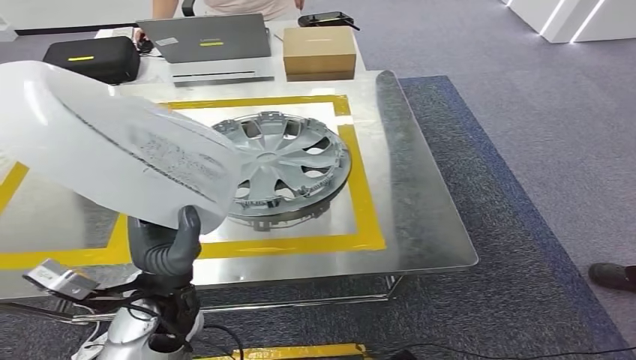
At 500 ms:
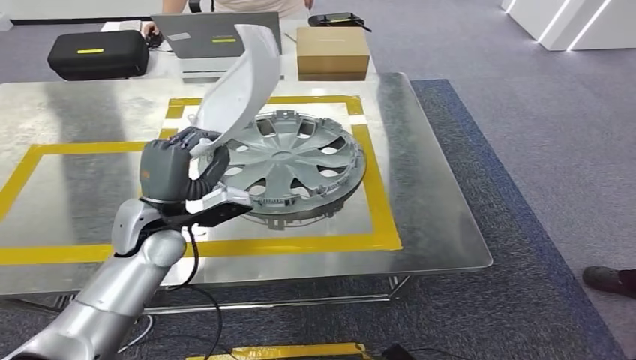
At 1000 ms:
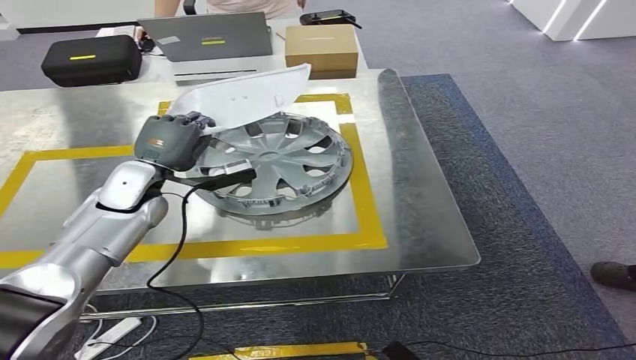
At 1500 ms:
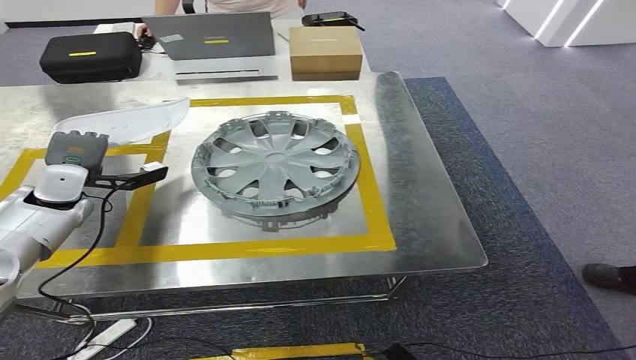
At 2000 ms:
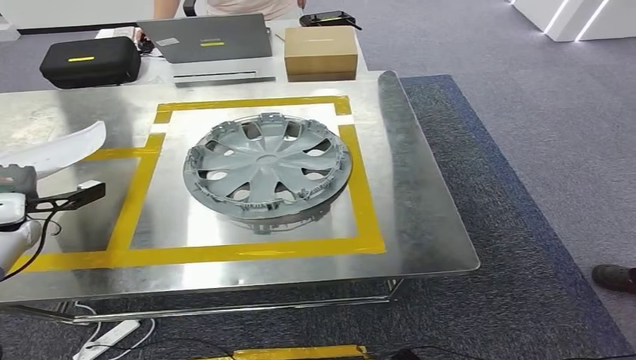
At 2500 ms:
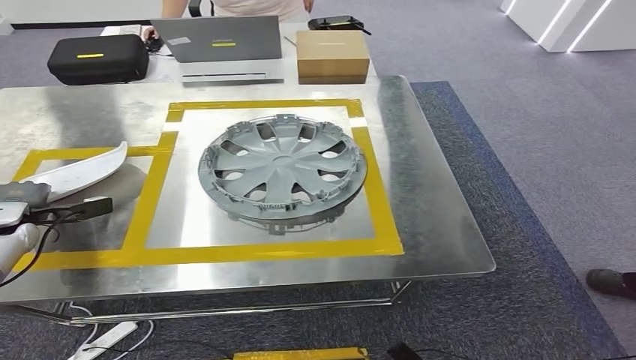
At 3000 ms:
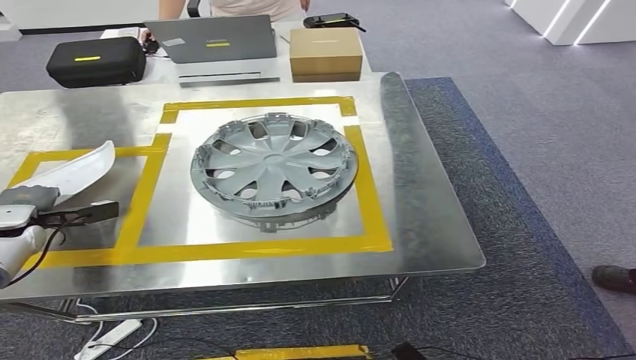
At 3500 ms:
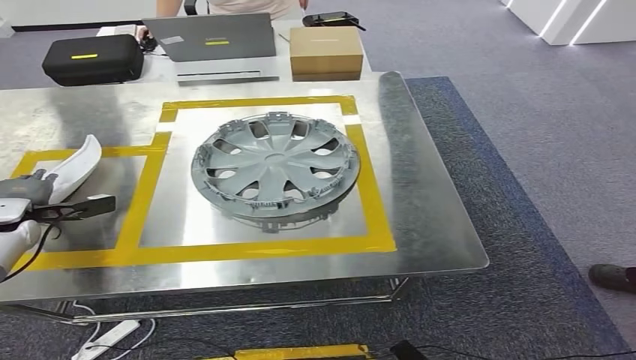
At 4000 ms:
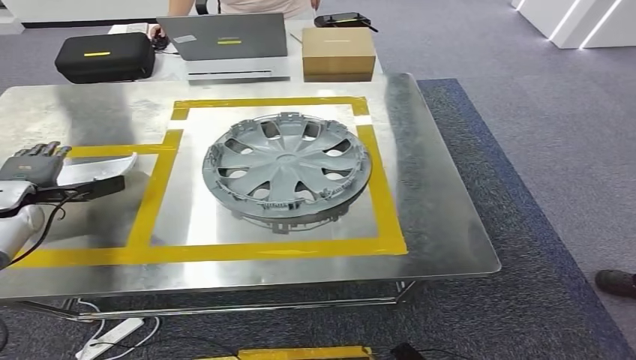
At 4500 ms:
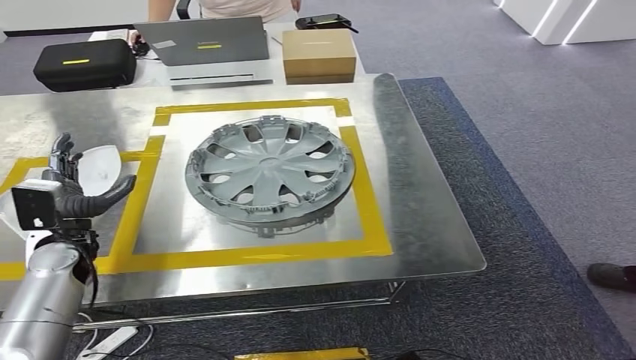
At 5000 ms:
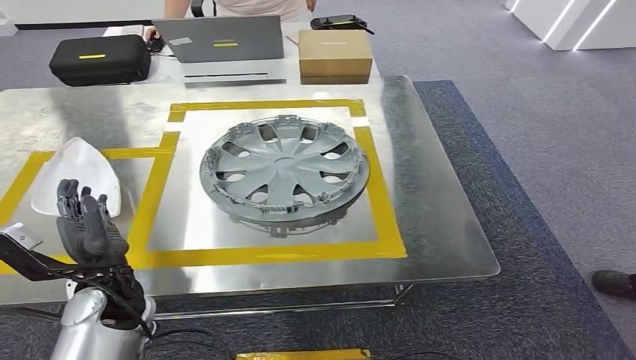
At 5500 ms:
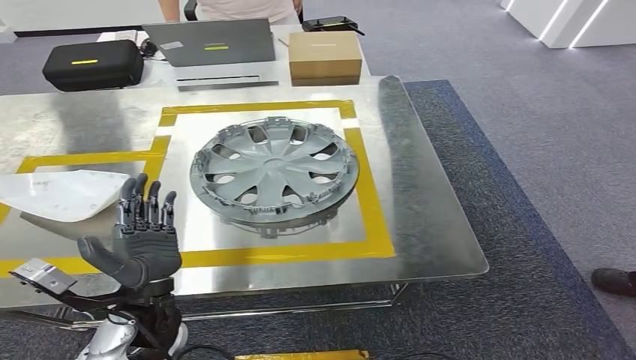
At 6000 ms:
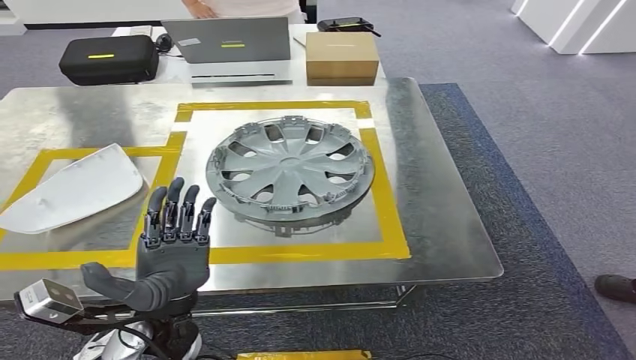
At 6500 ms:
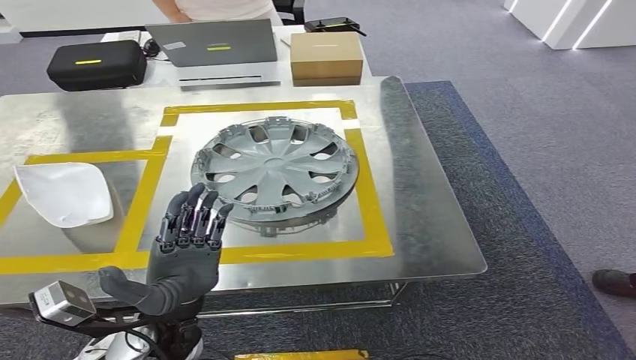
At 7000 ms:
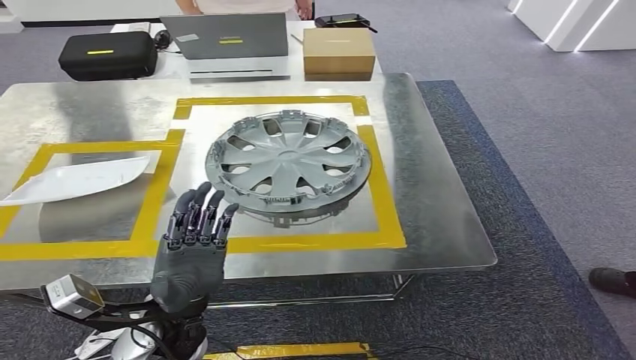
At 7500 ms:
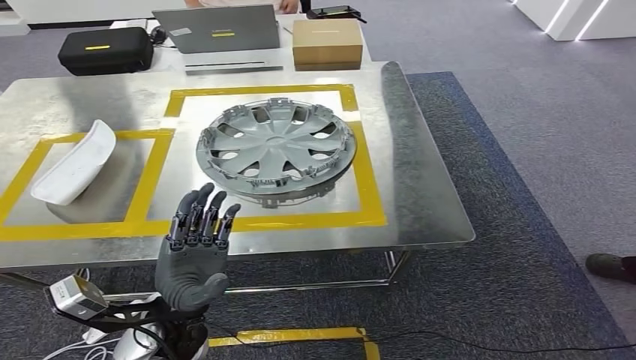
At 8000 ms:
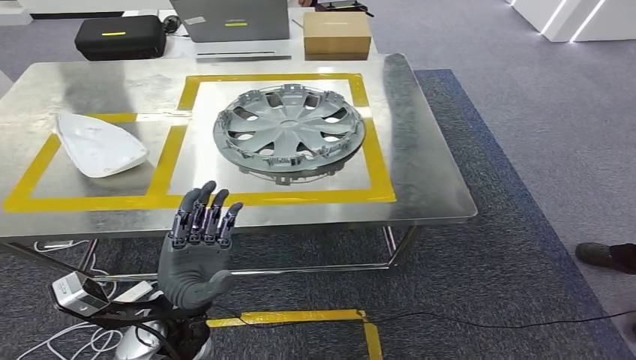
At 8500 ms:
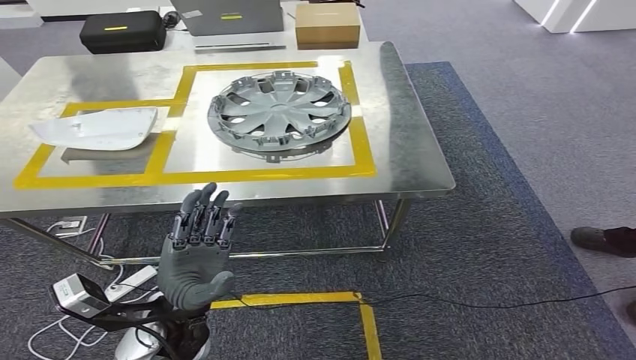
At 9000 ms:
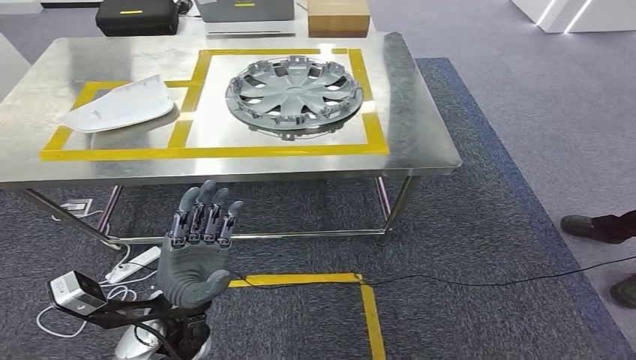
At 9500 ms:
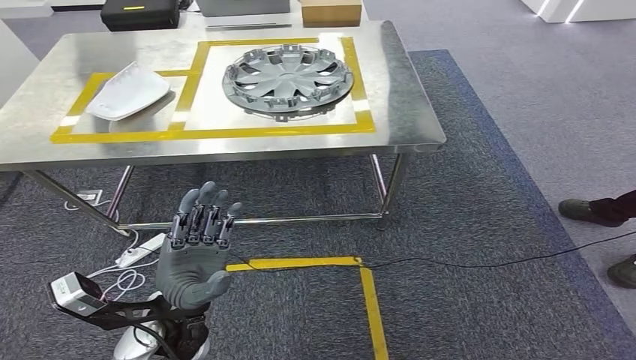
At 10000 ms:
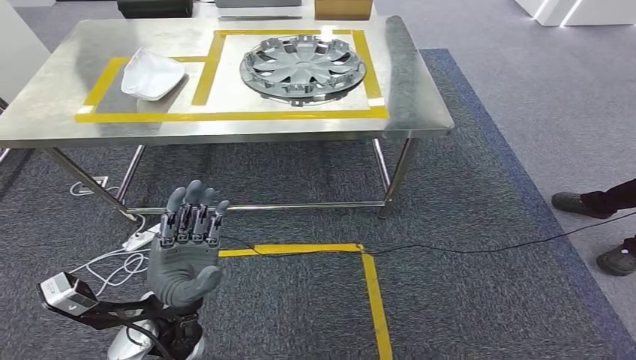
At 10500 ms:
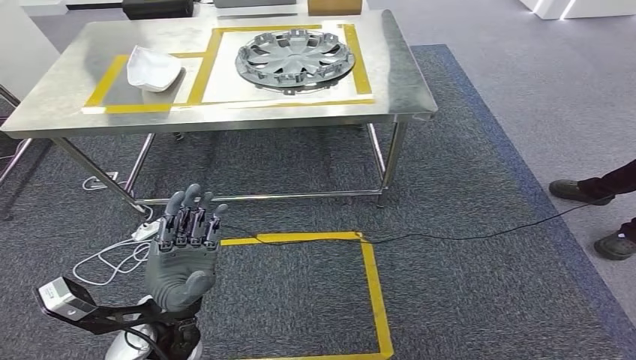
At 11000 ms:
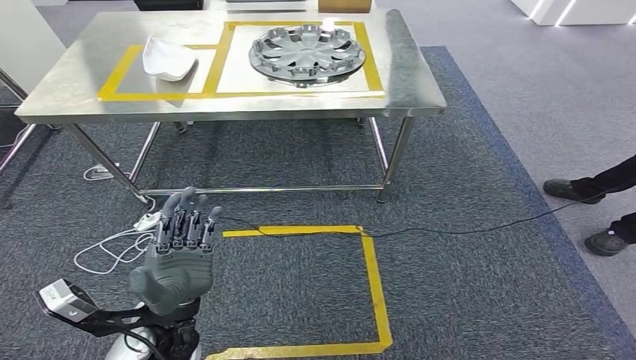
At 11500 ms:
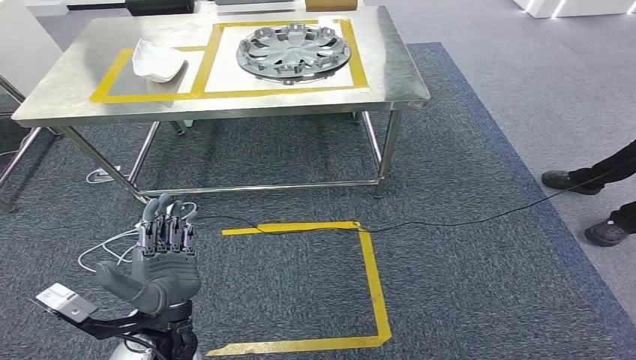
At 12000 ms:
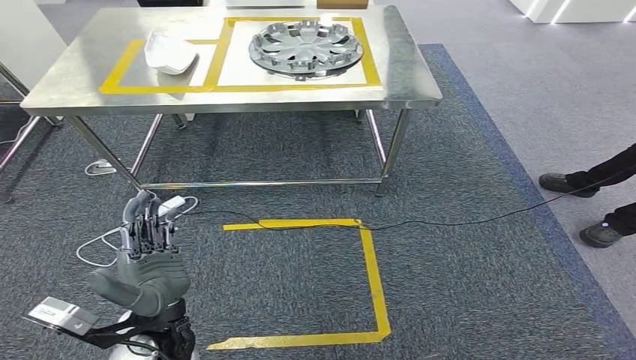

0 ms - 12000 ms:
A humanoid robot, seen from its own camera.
Step, 0 ms - 11500 ms: Insert the small component into the corresponding slot on the workbench.

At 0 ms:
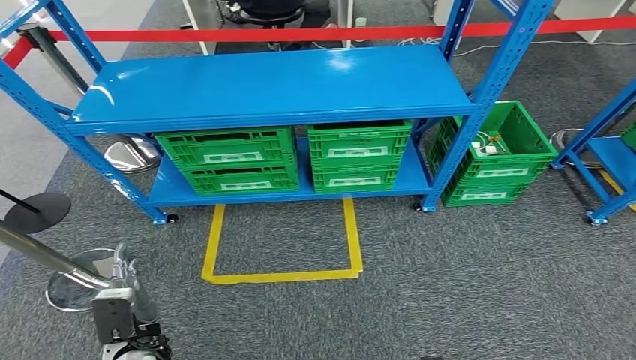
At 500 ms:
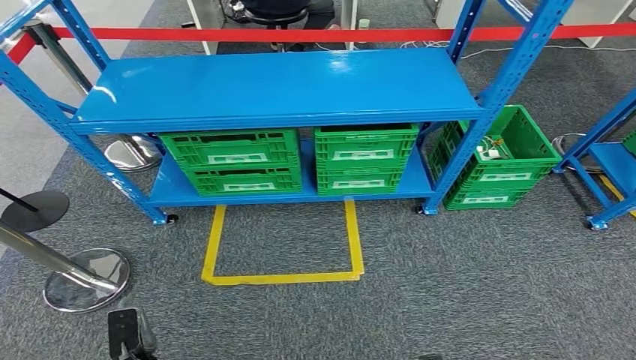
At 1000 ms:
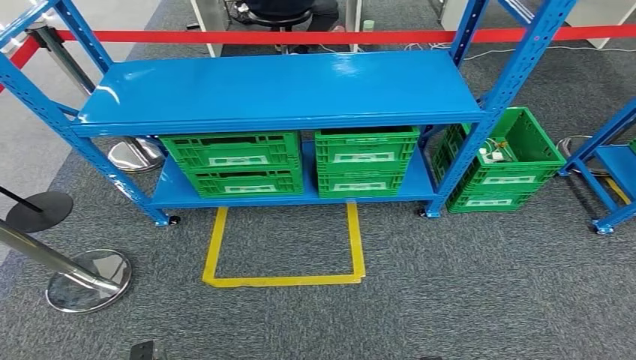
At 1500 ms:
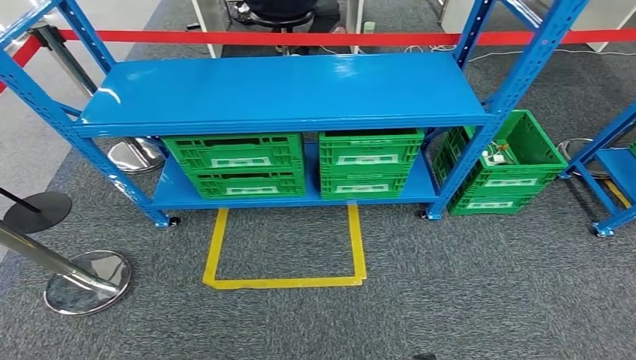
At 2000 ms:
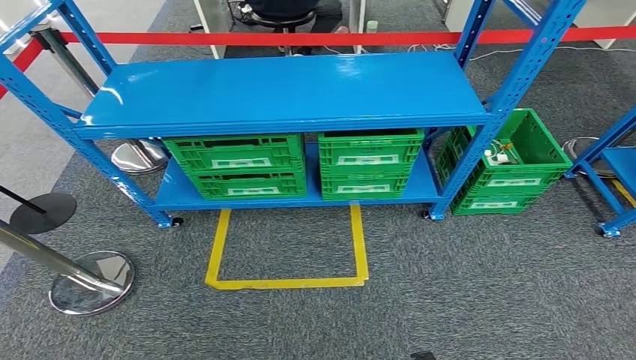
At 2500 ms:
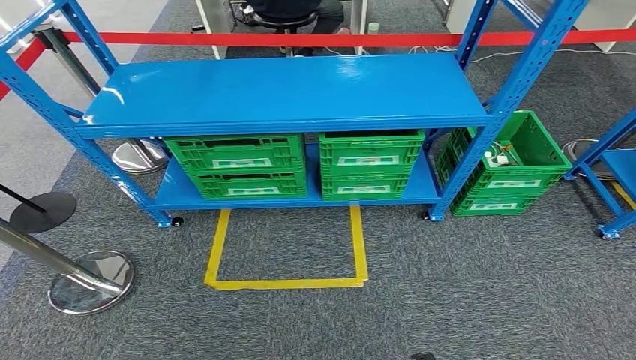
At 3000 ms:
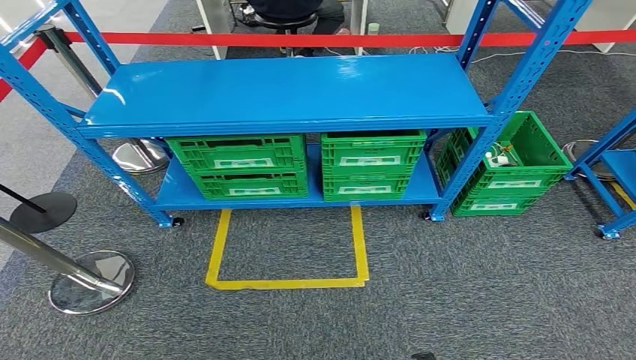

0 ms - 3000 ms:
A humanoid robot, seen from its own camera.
Step, 0 ms - 3000 ms: Move to the initial position of the workbench.
1500 ms - 3000 ms: The hands make only small movements.

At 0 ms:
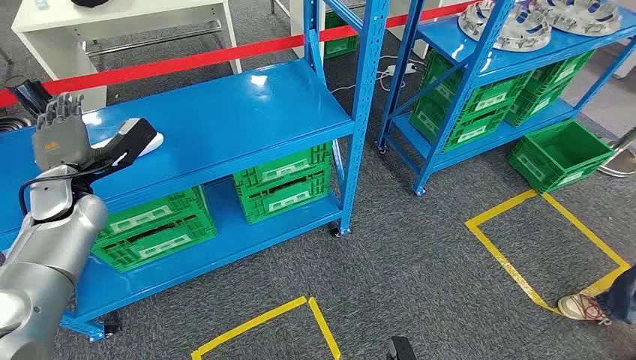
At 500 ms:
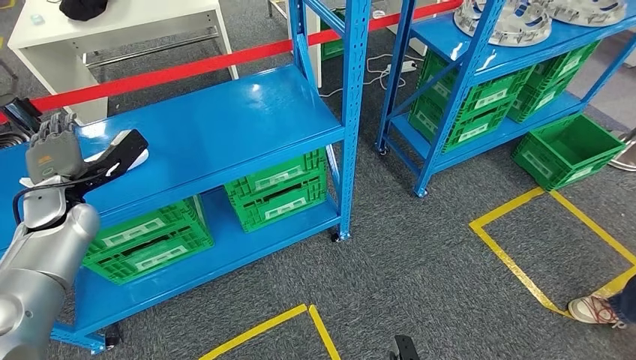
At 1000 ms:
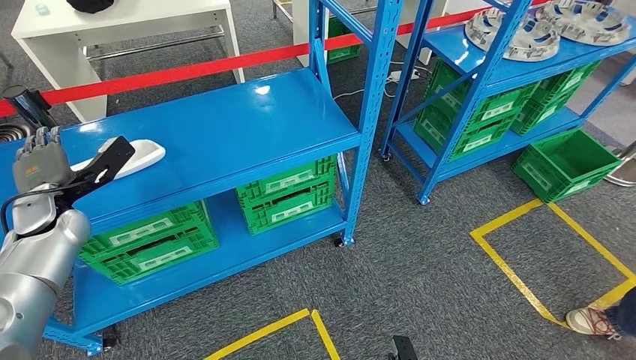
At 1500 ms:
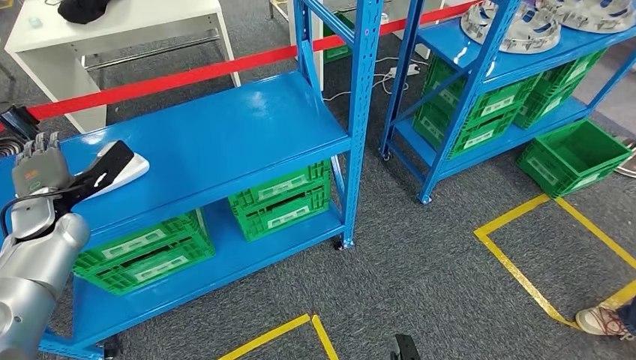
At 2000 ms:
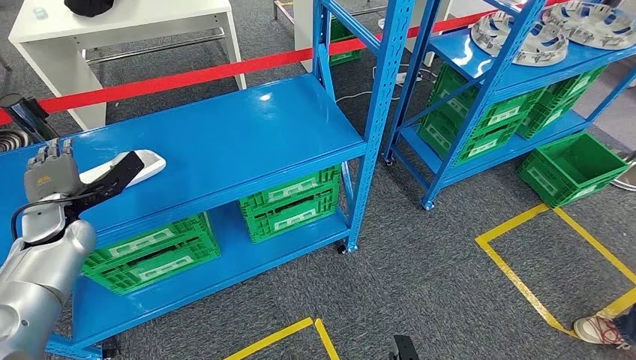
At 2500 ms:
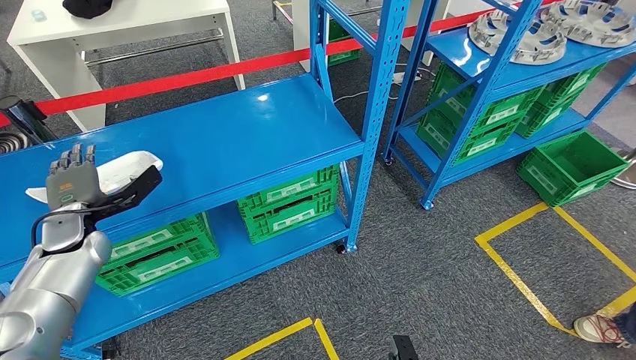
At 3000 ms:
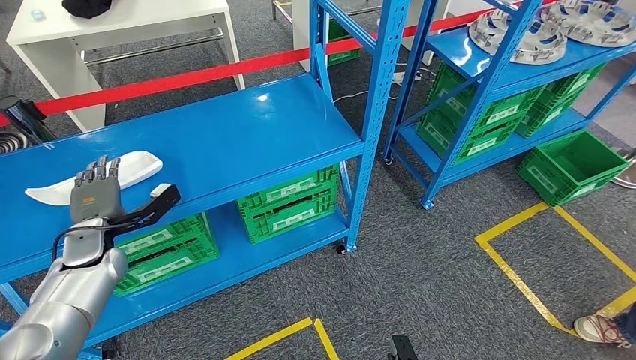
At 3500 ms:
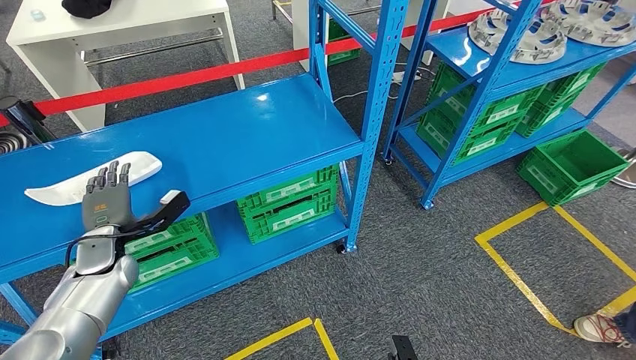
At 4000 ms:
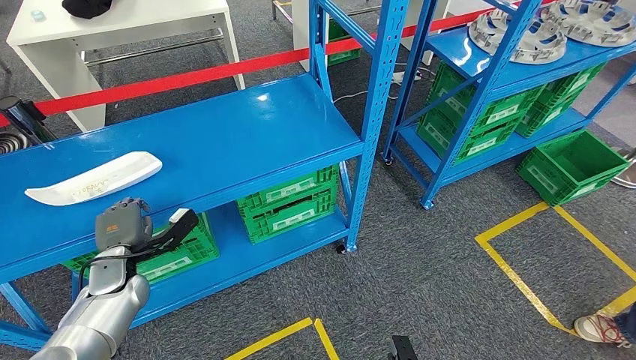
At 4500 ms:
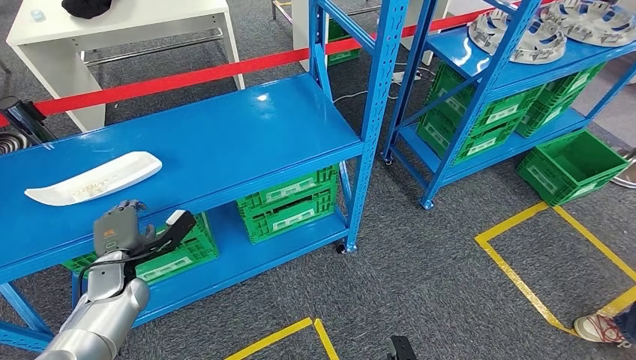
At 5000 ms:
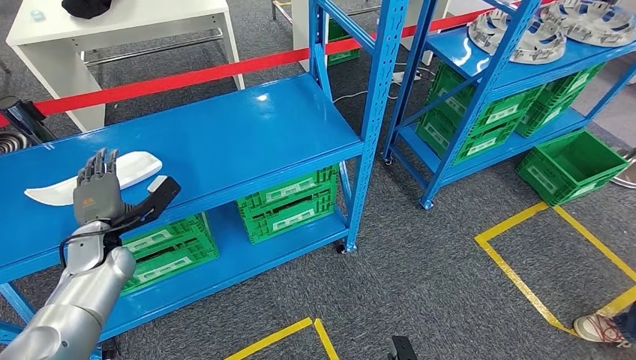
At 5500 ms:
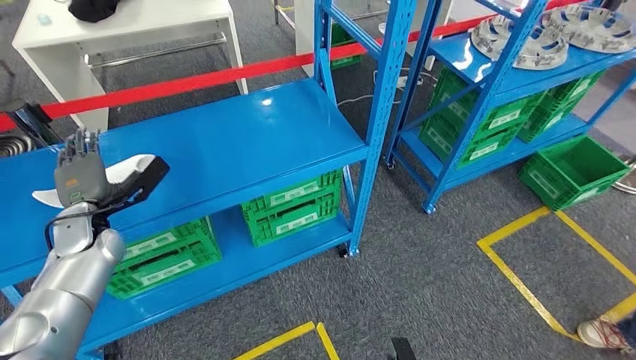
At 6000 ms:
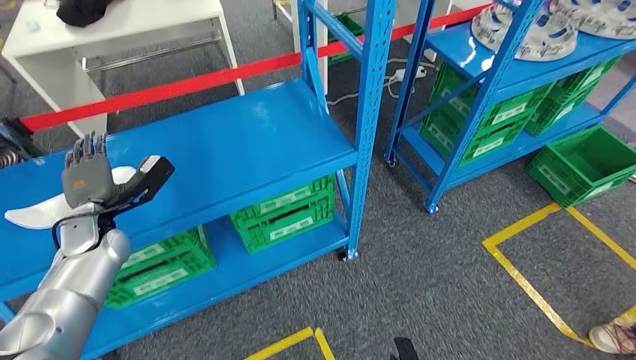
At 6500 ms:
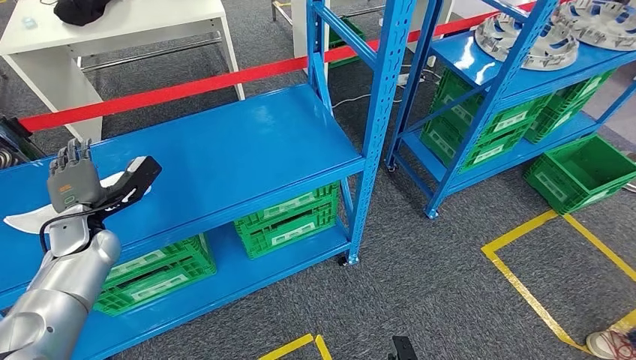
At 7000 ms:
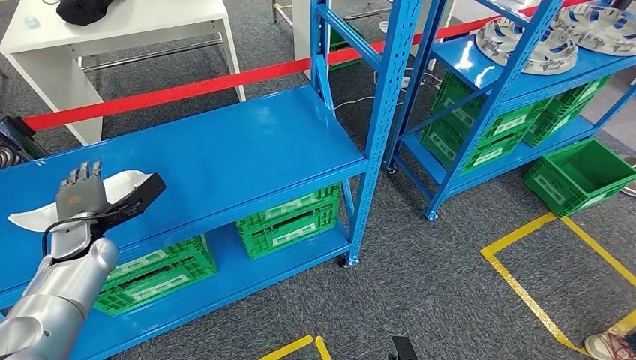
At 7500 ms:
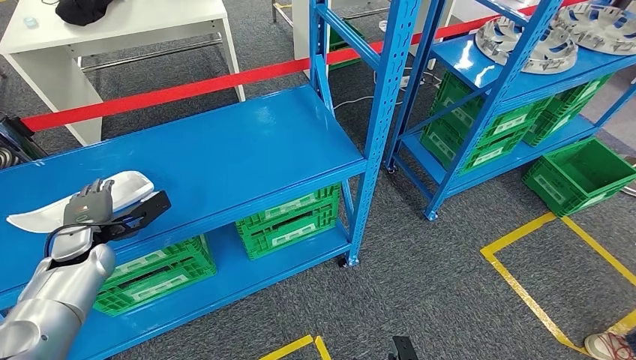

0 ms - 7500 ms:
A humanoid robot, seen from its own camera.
2000 ms - 4000 ms: The left hand moves downward, backward and to the right, about 15 cm.
